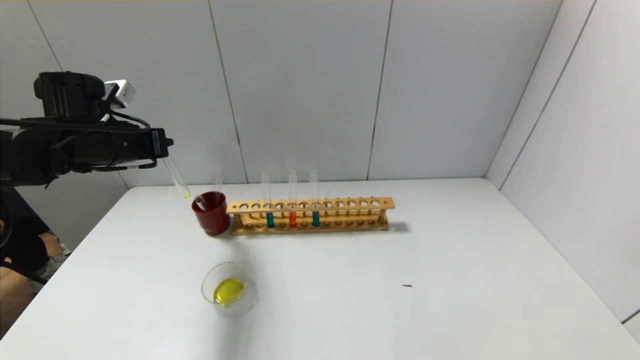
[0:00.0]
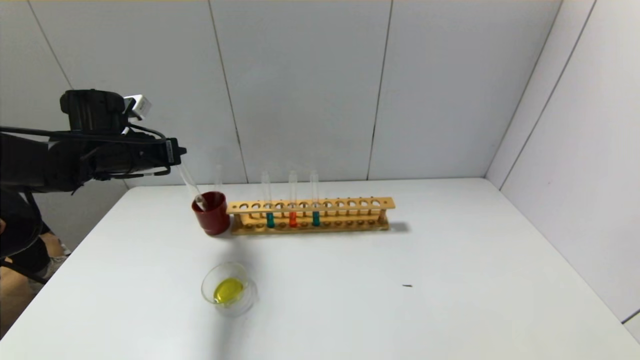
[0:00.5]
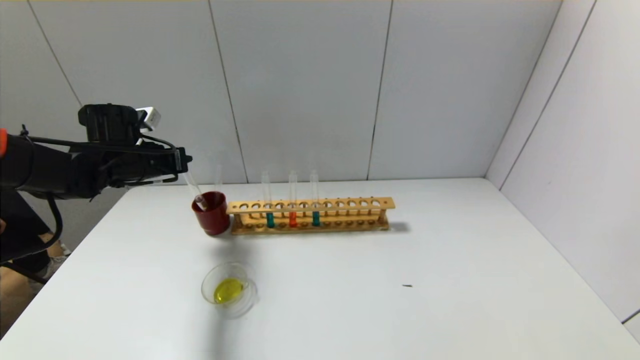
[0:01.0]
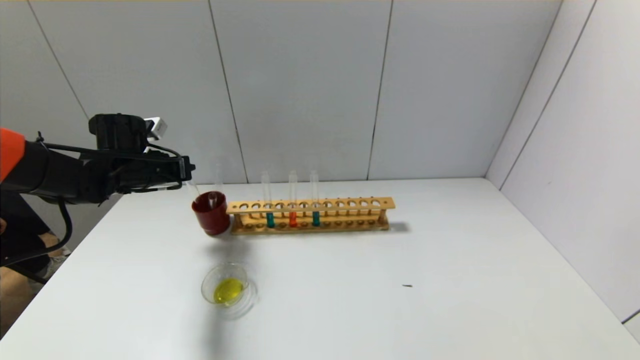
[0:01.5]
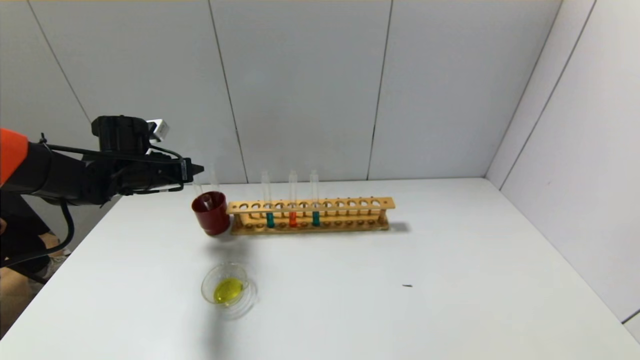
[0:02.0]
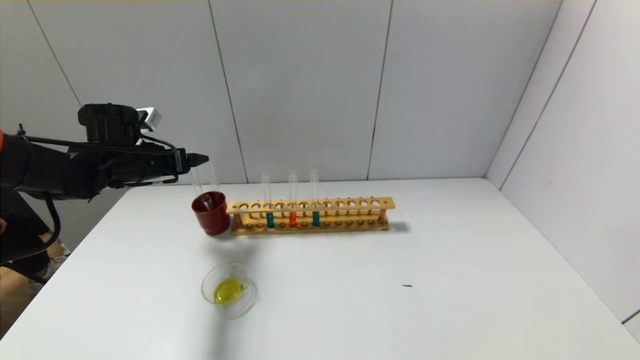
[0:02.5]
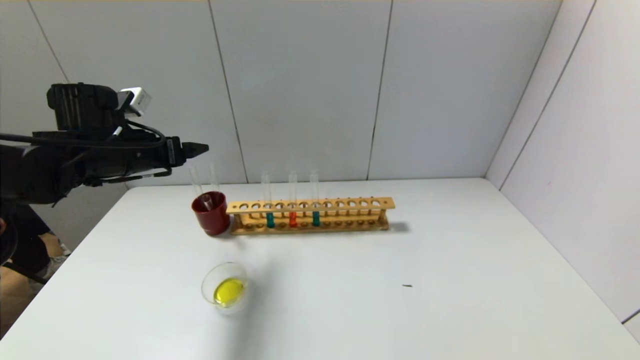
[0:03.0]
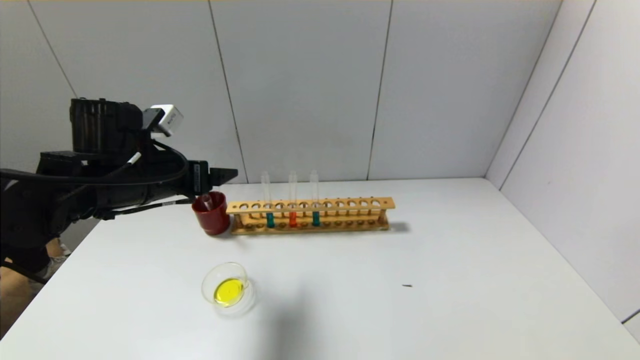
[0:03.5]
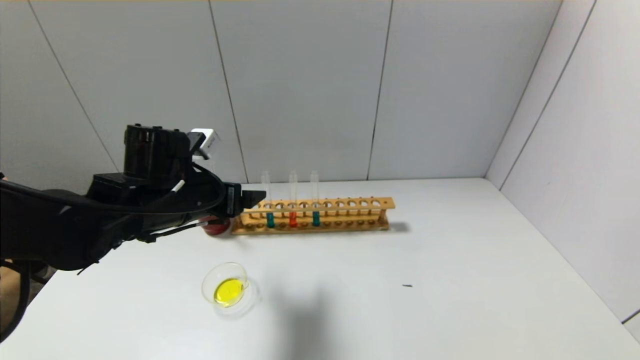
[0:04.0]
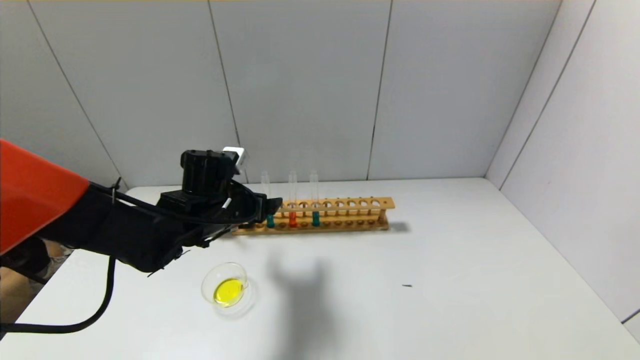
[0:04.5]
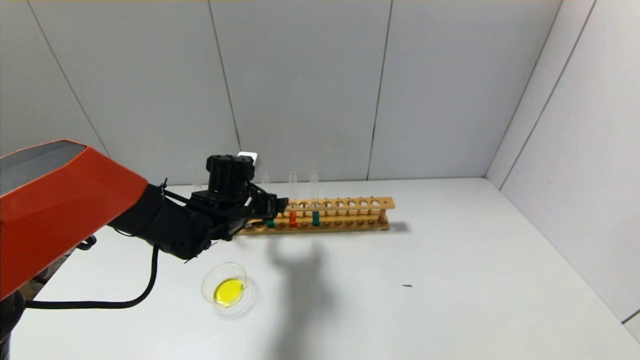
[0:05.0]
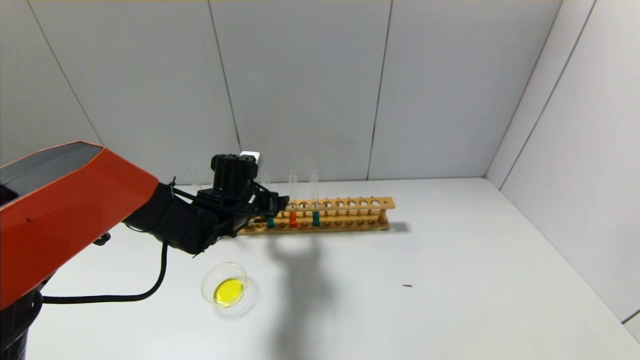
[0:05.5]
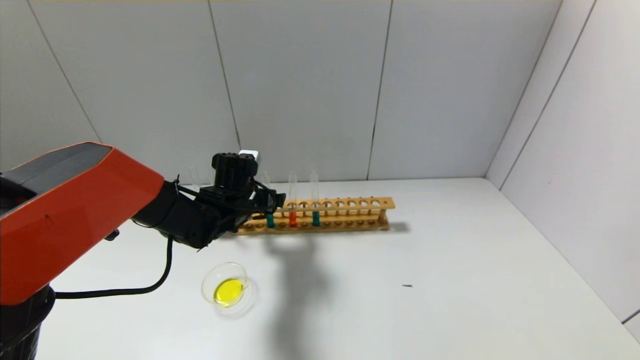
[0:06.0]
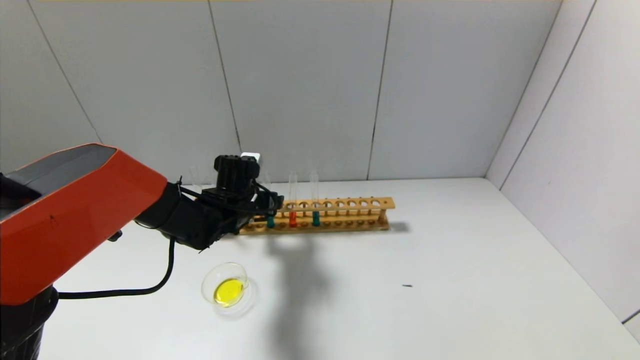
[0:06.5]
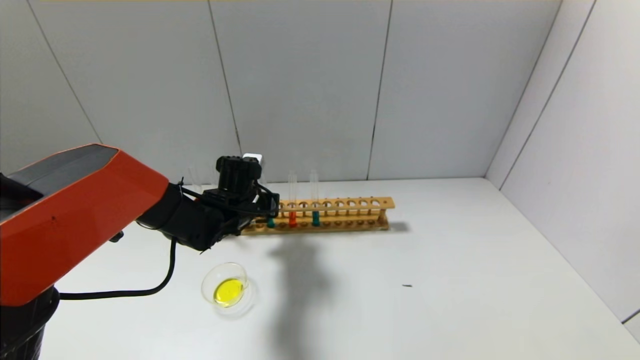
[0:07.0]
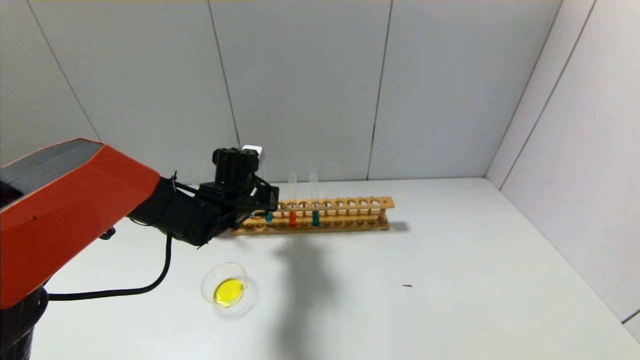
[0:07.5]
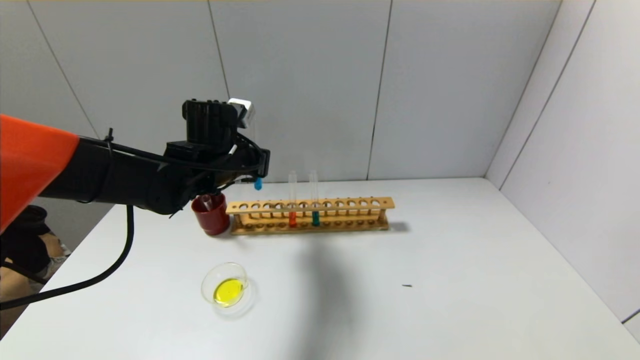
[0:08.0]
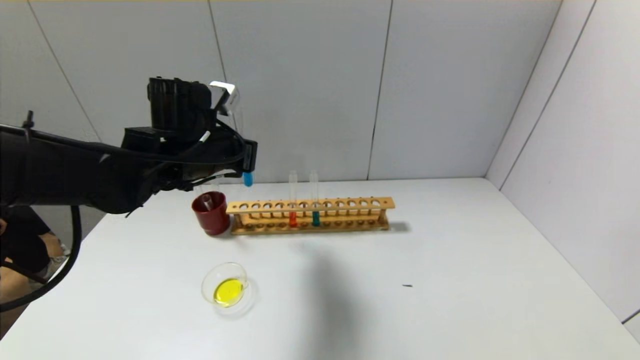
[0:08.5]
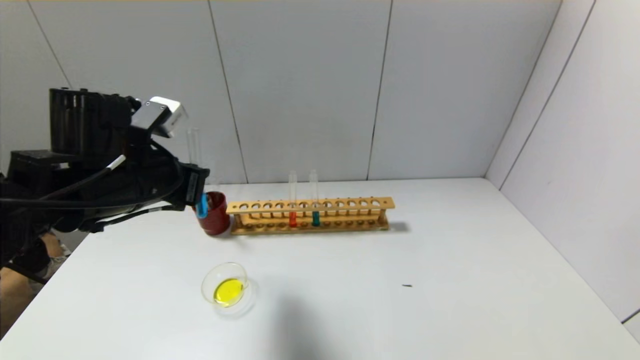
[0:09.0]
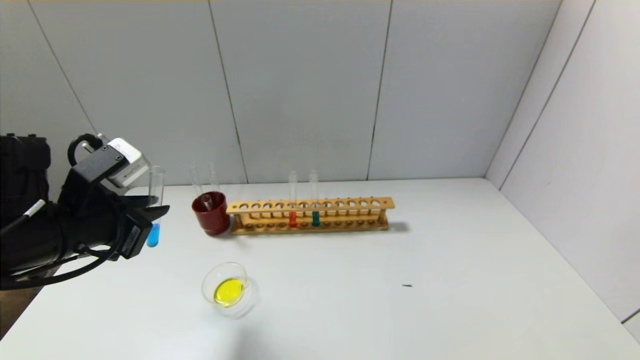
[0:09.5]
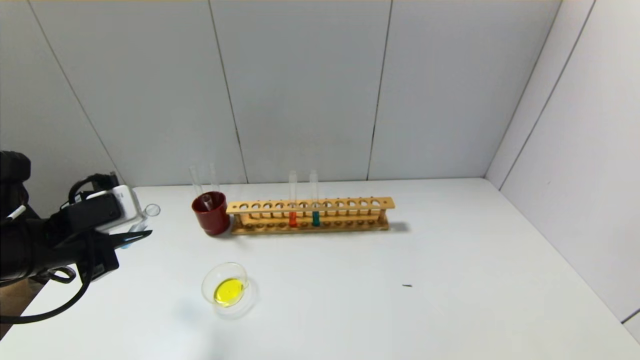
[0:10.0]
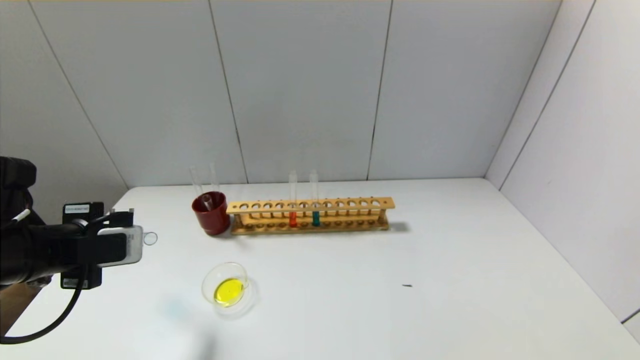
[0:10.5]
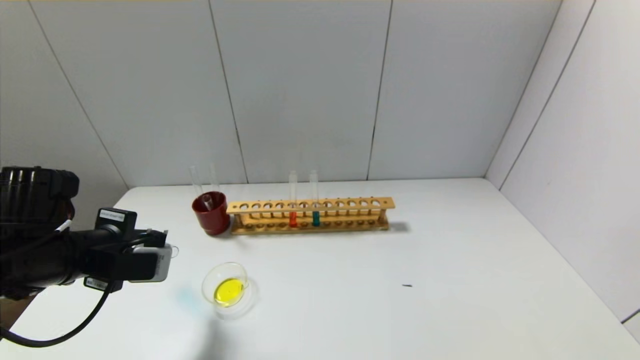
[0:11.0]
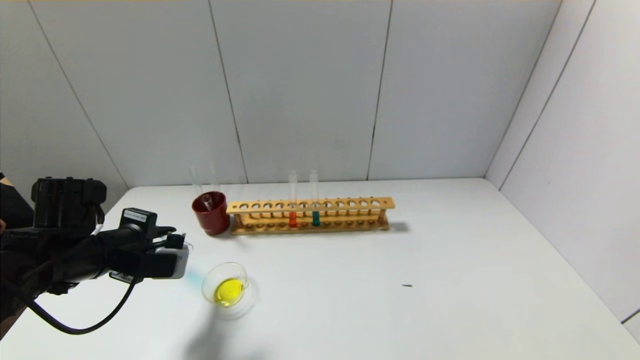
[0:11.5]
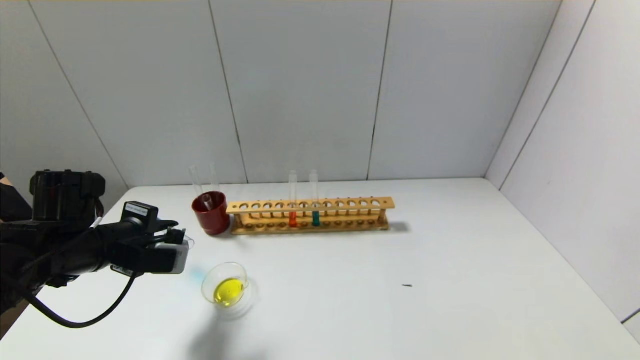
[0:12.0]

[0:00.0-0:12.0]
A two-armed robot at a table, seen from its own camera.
Step, 0:00.0 to 0:02.0: Place the test tube into the brown cup with the left gripper.
Step, 0:02.5 to 0:07.0: Grasp the blue reagent with the left gripper.
0:00.0 to 0:02.0: The left gripper goes about 5 cm downward, and opens.
0:02.0 to 0:04.0: The left gripper travels to the right and backward by roughly 15 cm, and opens.
0:04.0 to 0:06.0: The left gripper heads forward and downward, covering about 15 cm.
0:06.0 to 0:08.0: The left gripper heads upward, covering some 10 cm, and closes.
0:08.0 to 0:10.0: The left gripper is displaced backward and to the left by some 20 cm.
0:10.0 to 0:12.0: The left gripper moves downward, about 5 cm.

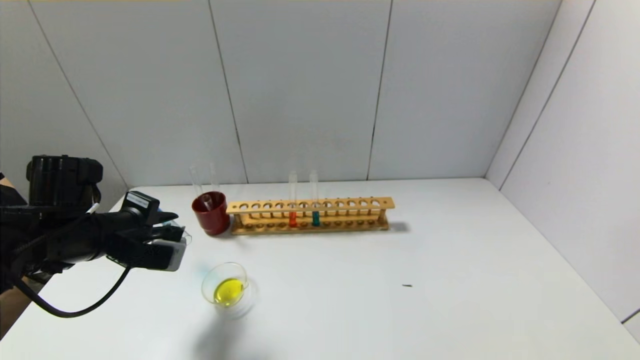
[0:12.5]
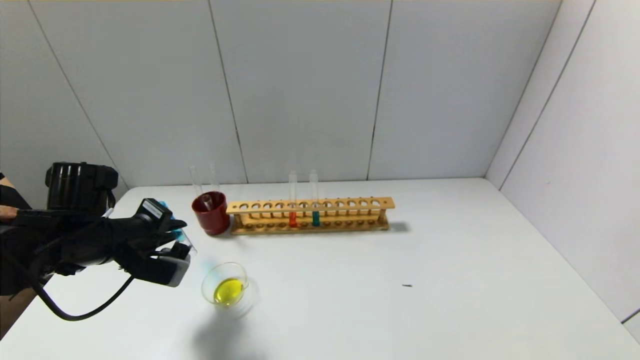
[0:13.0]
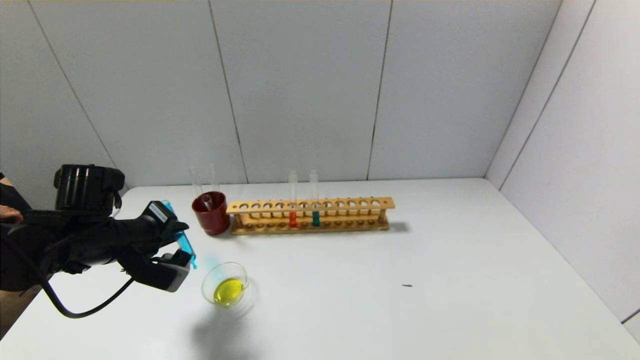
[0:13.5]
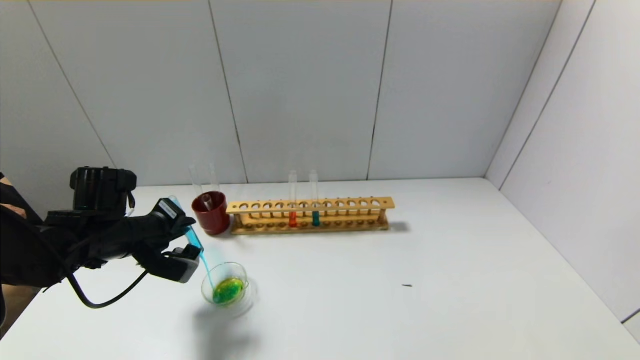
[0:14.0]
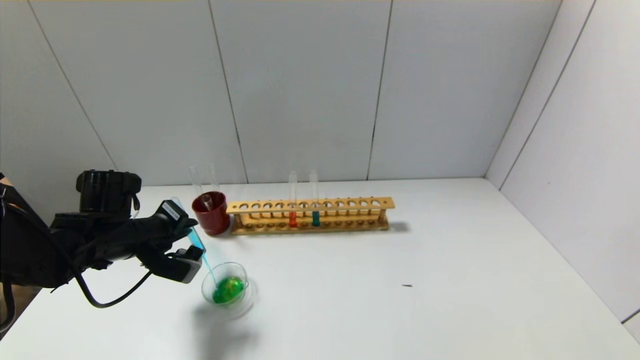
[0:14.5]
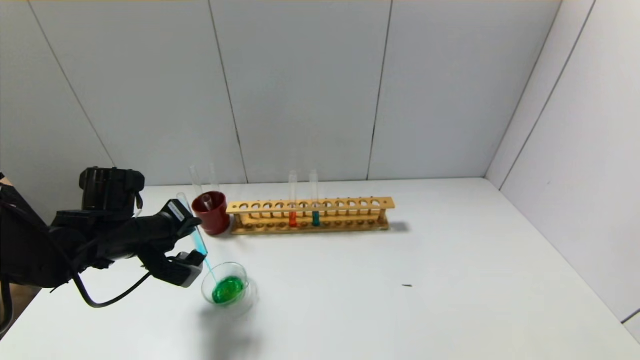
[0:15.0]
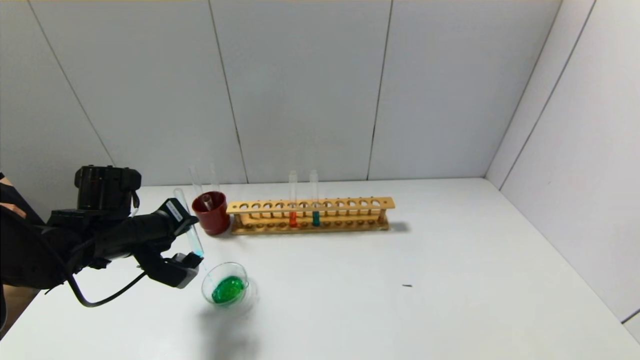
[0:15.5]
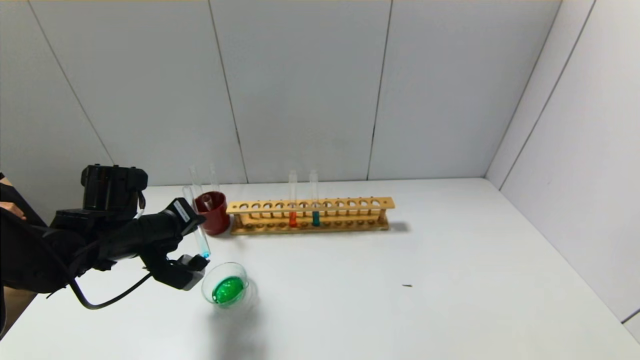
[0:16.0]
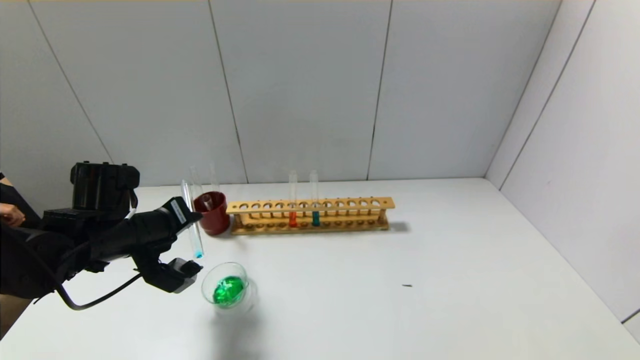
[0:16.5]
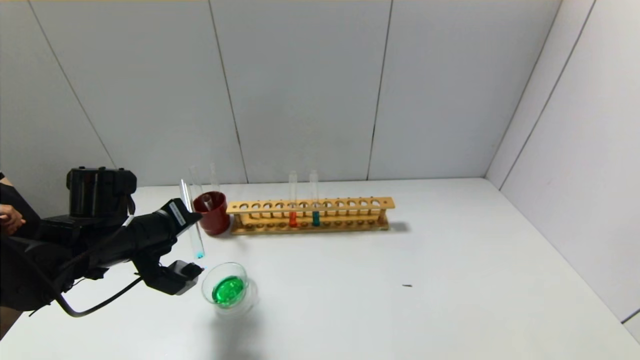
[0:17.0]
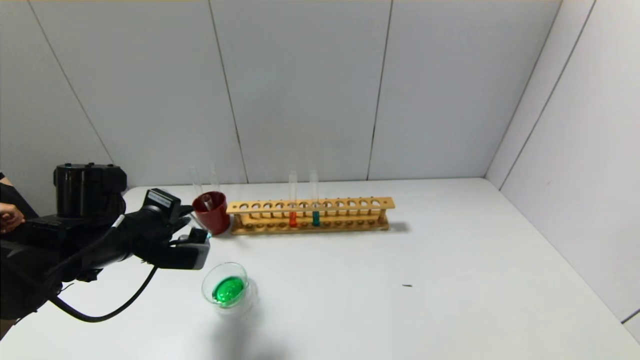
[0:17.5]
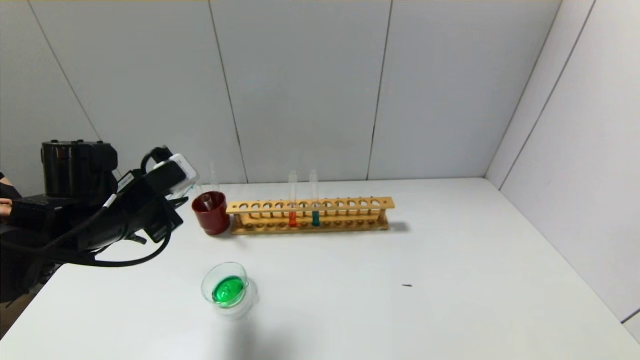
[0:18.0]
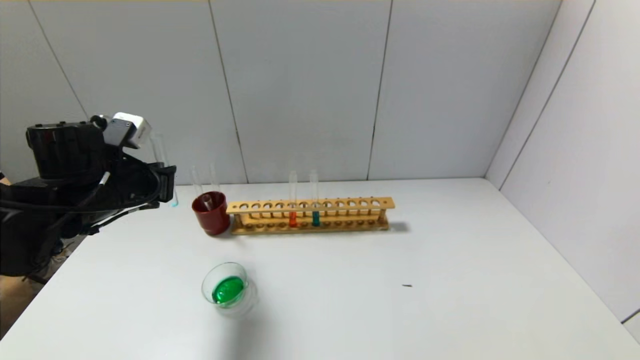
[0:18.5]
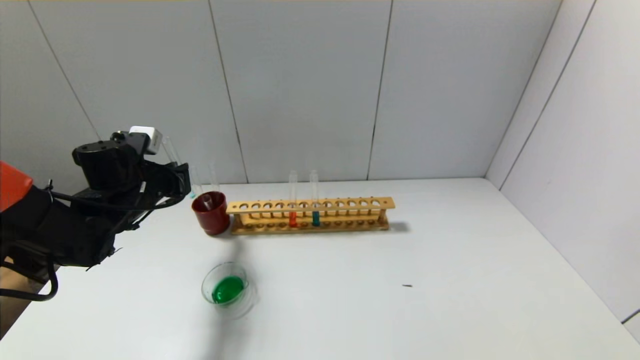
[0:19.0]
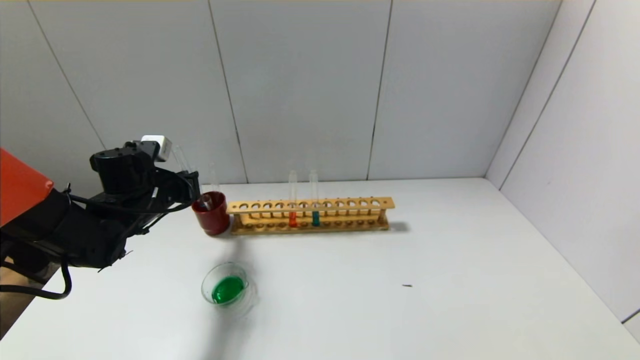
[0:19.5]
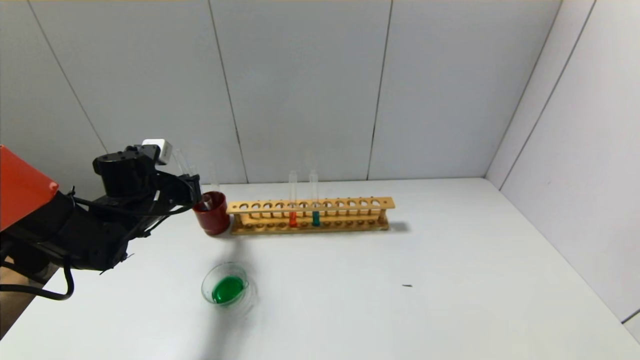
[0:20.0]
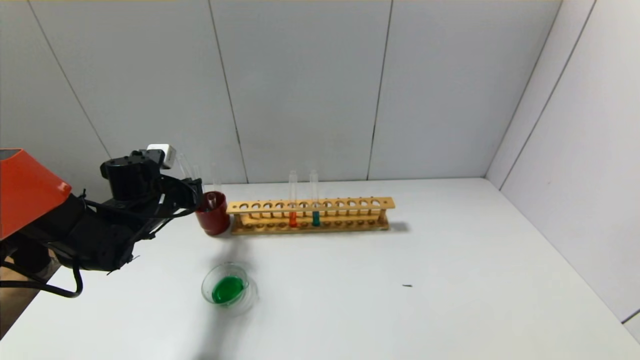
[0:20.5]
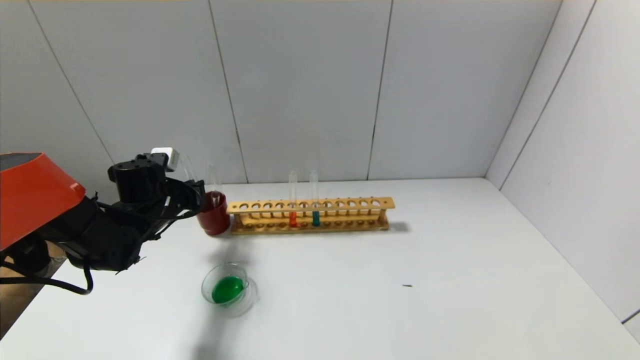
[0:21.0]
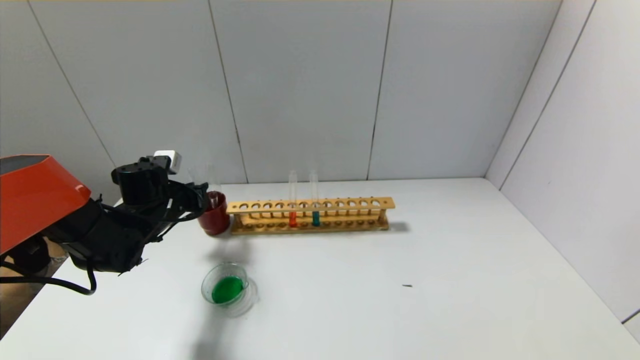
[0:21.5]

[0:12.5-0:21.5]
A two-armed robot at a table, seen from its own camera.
Step, 0:12.5 to 0:17.0: Pour the blue reagent into the graduated cylinder with the left gripper.
0:12.5 to 0:14.5: The left gripper shifts by some 5 cm.
0:17.0 to 0:19.5: The left gripper goes roughly 10 cm forward.
0:19.5 to 0:21.5: The grippers move only a little.
